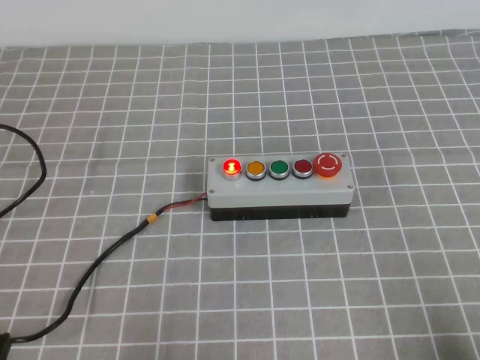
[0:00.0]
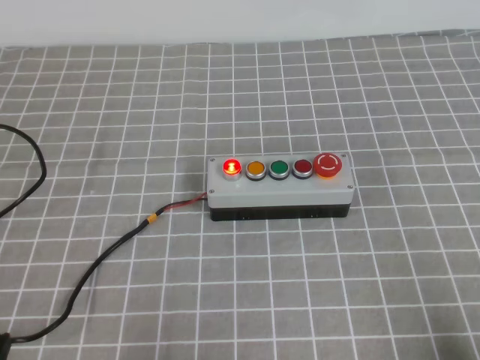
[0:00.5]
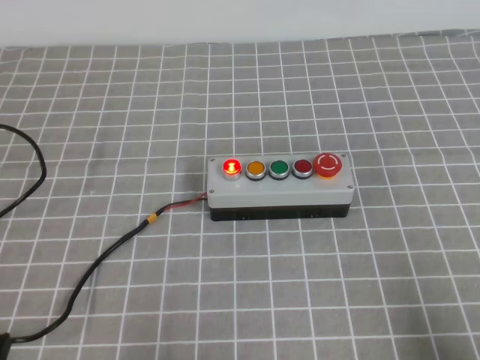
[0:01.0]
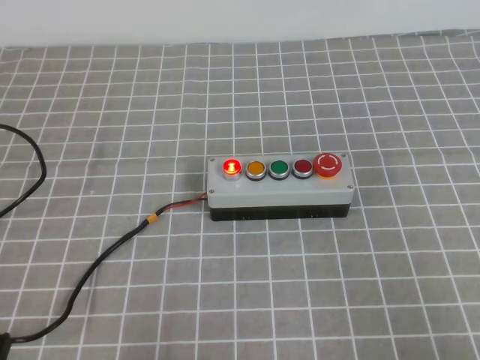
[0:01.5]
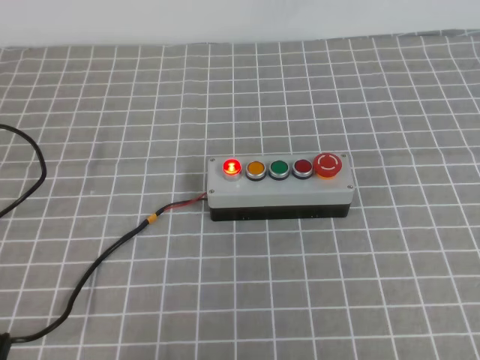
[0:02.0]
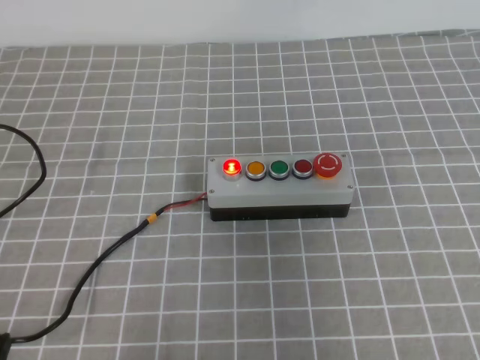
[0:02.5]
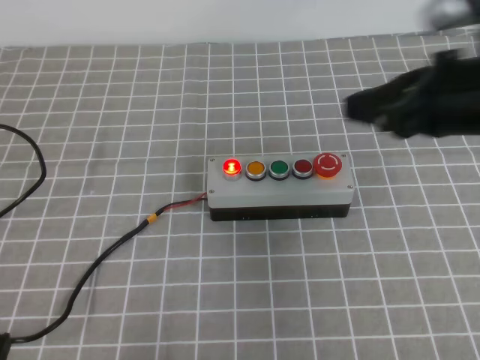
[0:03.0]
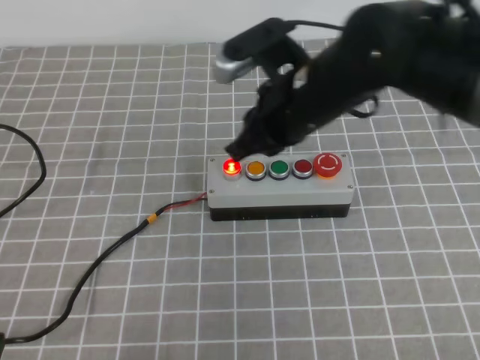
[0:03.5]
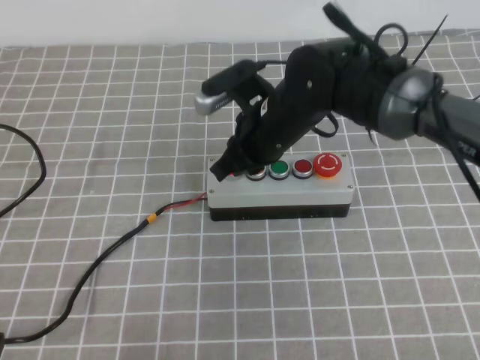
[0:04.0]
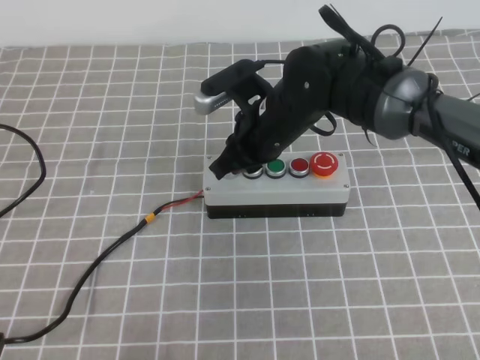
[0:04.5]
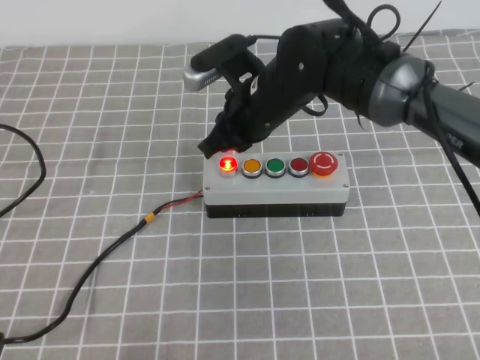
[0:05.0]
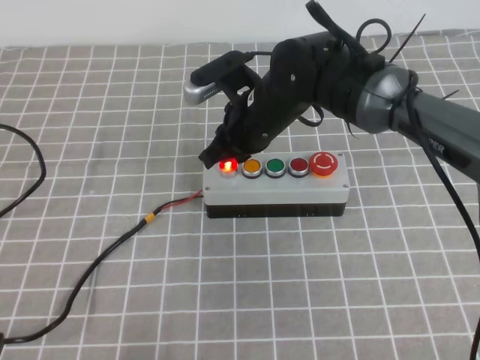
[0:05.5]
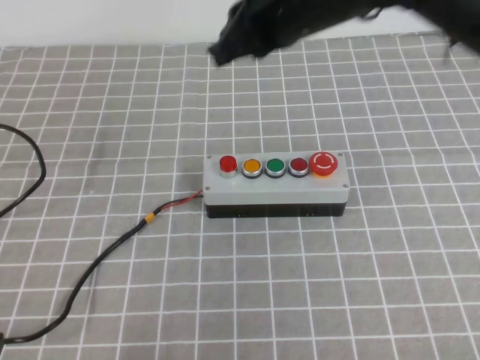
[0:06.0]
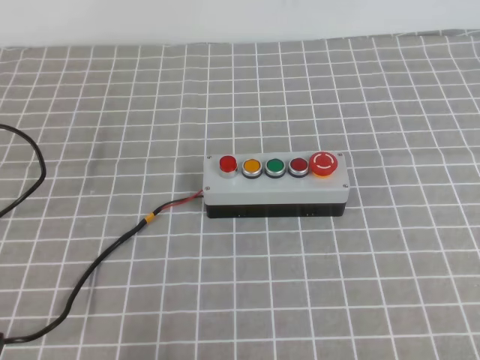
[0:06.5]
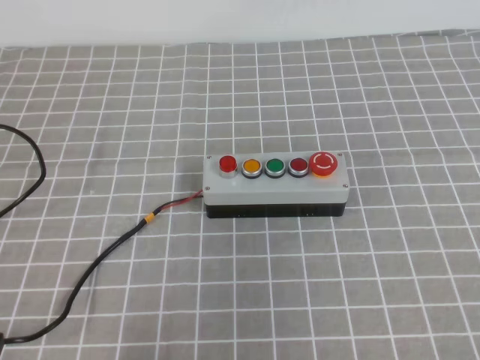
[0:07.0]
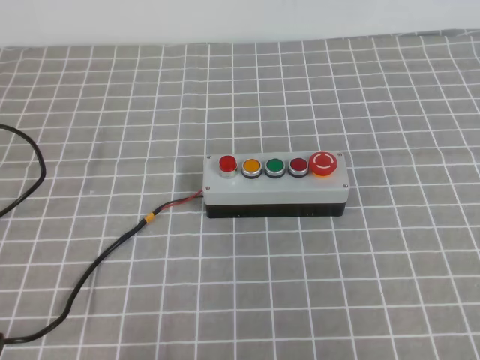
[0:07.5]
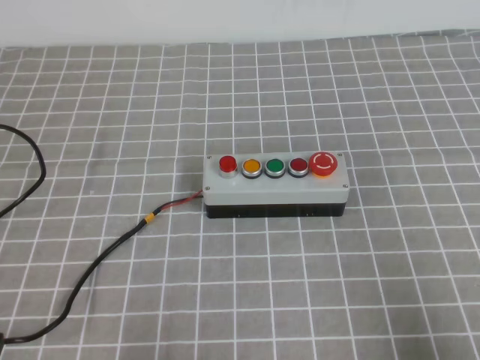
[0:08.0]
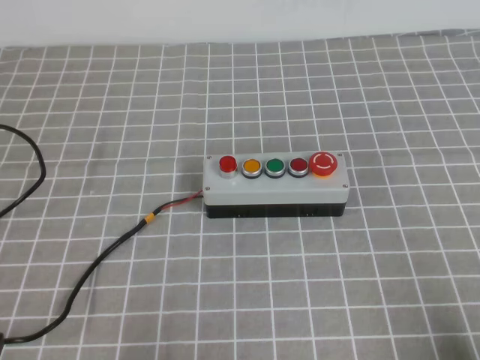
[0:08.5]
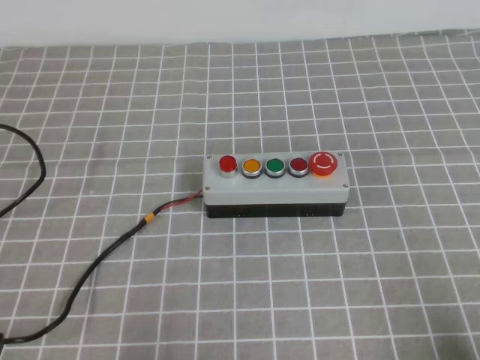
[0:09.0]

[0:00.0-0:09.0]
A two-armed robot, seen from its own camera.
Task of the whole recording: press the button switch on the grey tablecloth with the right gripper to turn off the button.
Step, 0:00.0 to 0:09.0: Press the button to turn off.
0:00.0 to 0:02.0: The right gripper shifts about 25 cm upward.
0:02.0 to 0:04.5: The right gripper heads forward, to the left and downward, covering some 50 cm, and opens its fingers.
0:04.5 to 0:07.0: The right gripper goes some 40 cm backward, to the right and upward.
0:07.0 to 0:09.0: The right gripper shifts some 25 cm downward, and closes its fingers.
